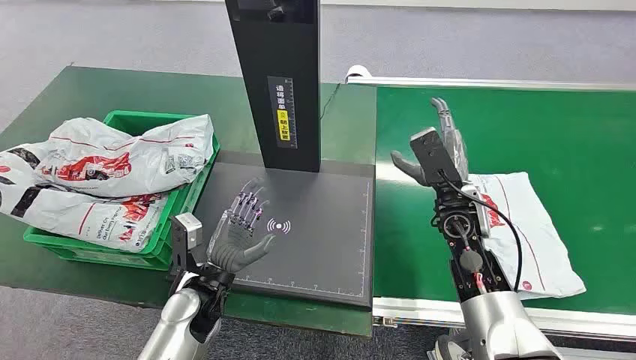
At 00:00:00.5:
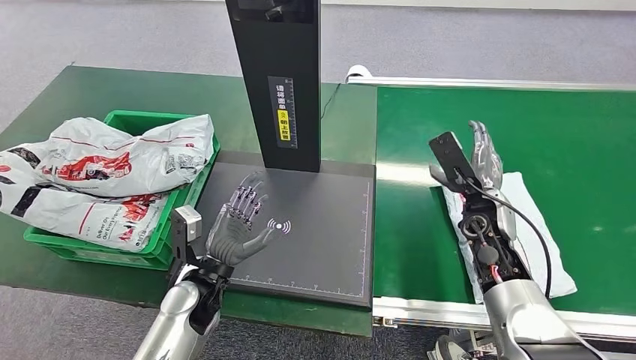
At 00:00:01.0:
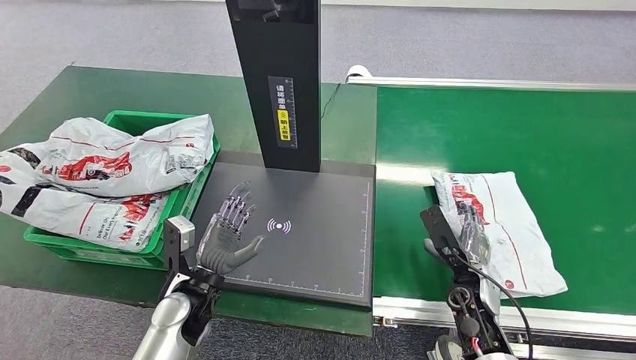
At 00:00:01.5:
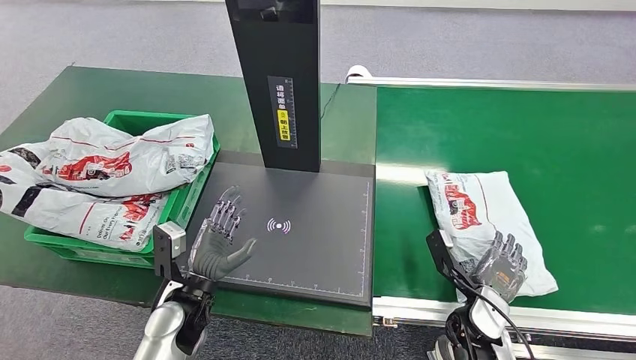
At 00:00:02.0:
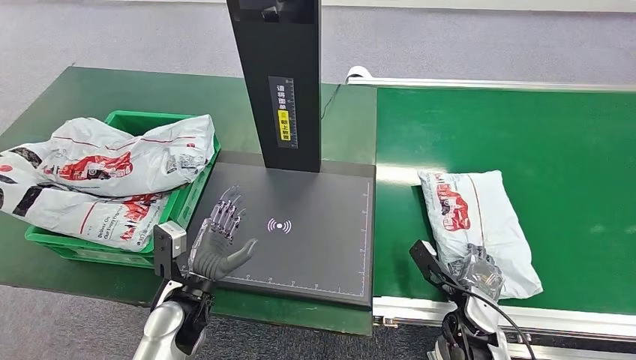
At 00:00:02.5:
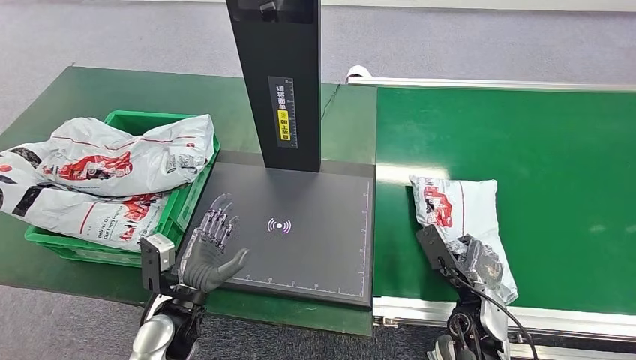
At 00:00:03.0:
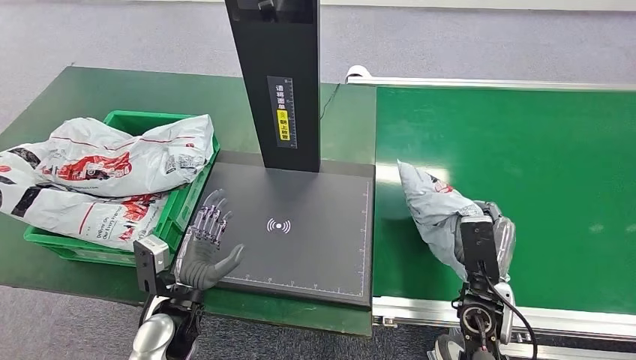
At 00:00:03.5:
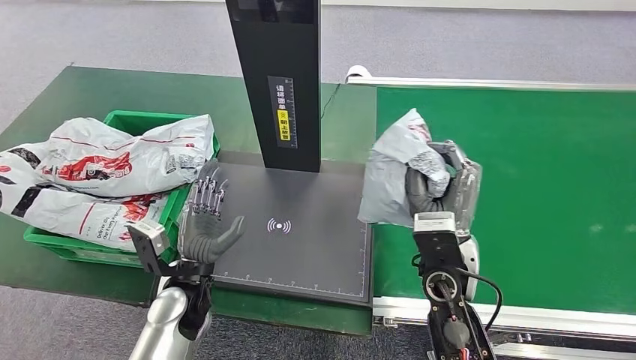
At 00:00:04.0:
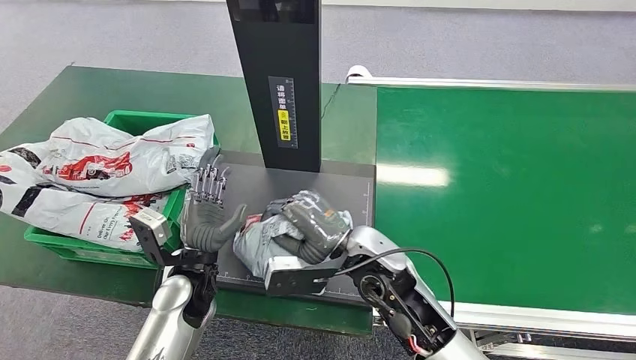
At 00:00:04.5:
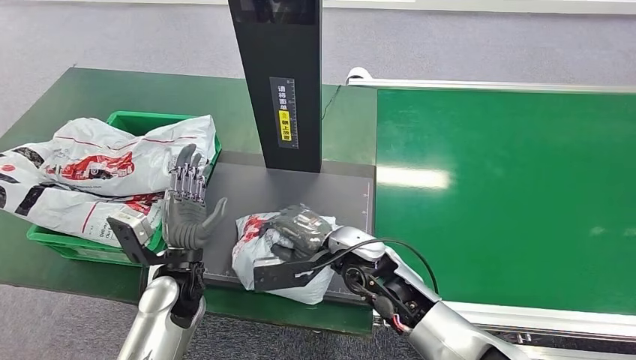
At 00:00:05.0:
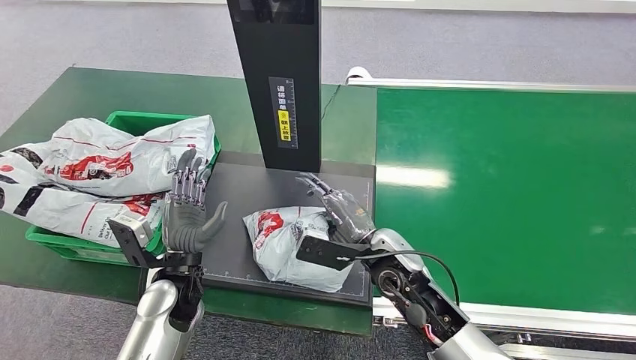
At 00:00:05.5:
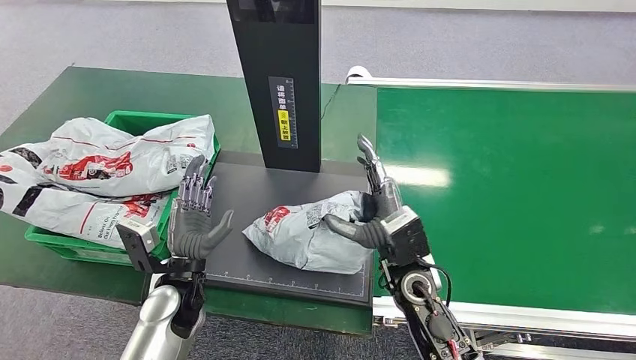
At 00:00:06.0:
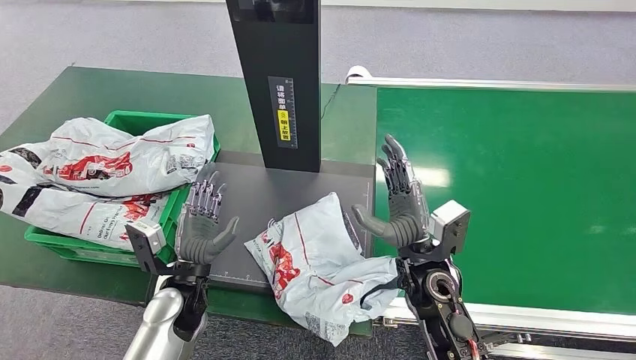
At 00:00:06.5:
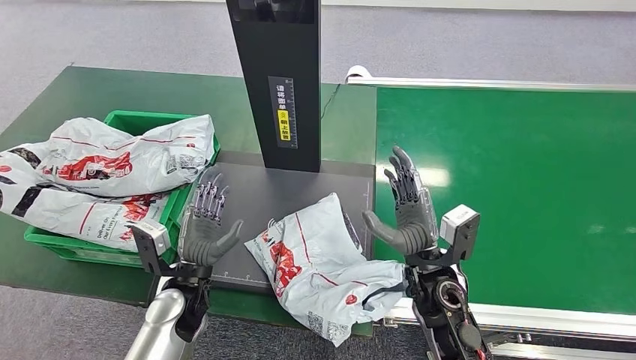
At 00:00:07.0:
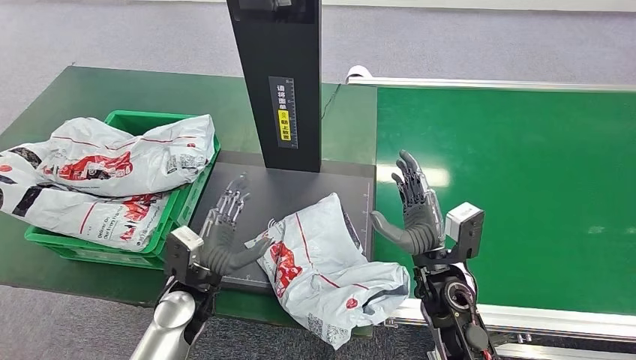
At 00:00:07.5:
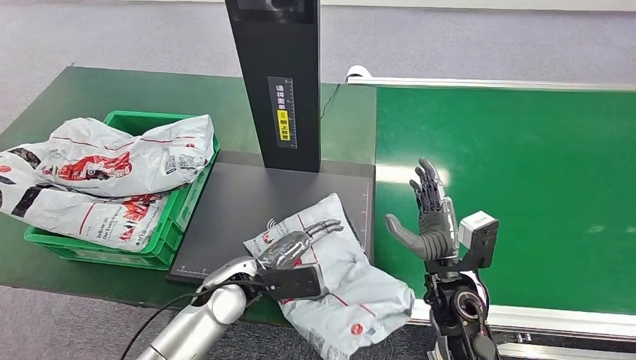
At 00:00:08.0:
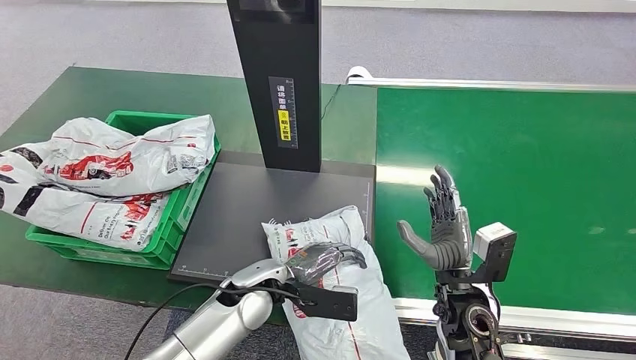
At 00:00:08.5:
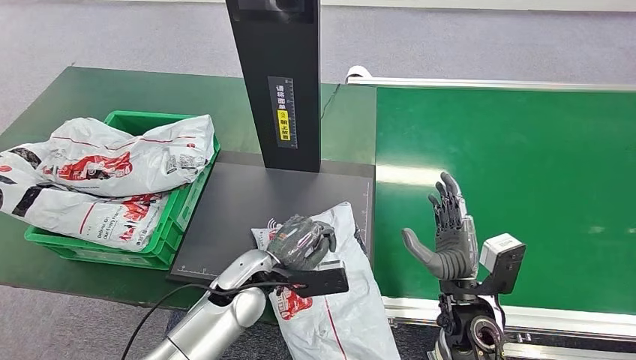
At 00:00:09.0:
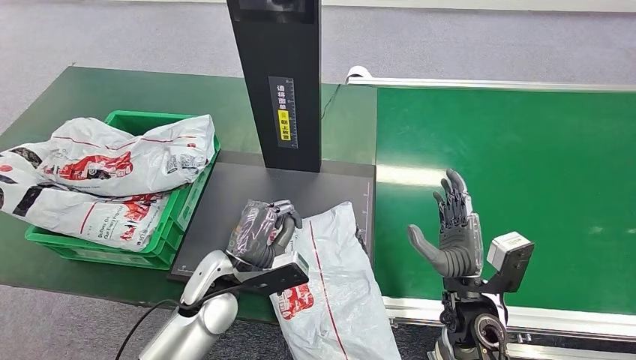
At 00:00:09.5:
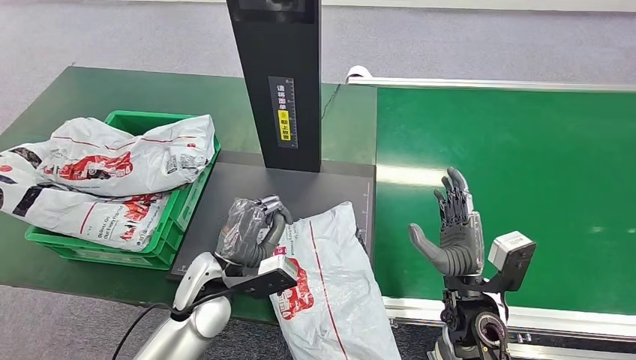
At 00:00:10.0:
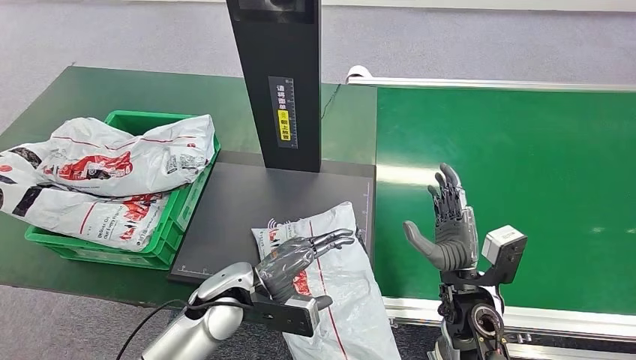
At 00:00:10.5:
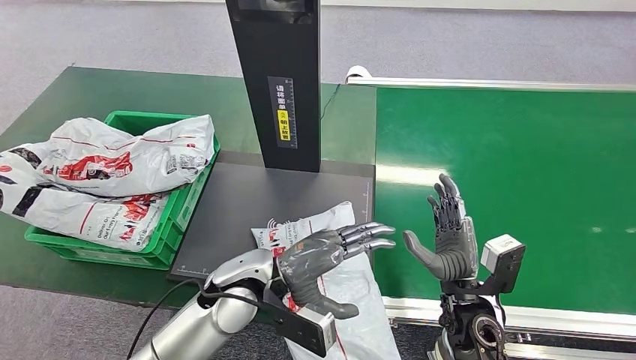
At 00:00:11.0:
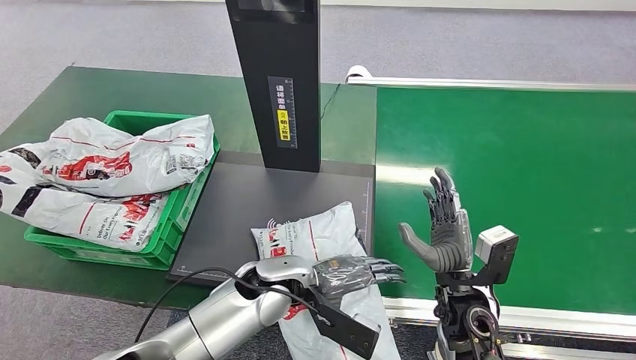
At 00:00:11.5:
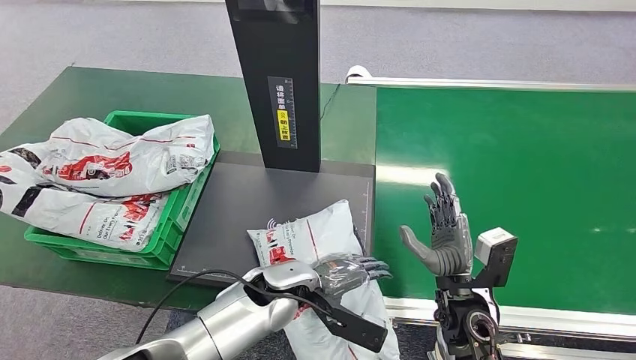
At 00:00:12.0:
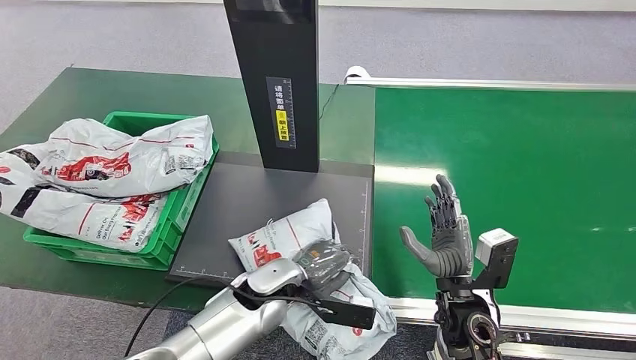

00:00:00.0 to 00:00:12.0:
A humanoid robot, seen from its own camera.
Step, 00:00:00.0 to 00:00:03.0: Pick up the package from the conveyor belt.
Step, 00:00:03.5 to 00:00:06.0: Place the package onto the inbound machine.
00:00:02.0 to 00:00:04.0: The left hand moves roughly 5 cm. The right hand shifts roughly 25 cm to the left and upward.
00:00:04.0 to 00:00:06.0: The right hand travels to the right by roughly 10 cm.
00:00:06.0 to 00:00:08.0: The left hand moves to the right, about 10 cm; the right hand goes about 5 cm to the right.
00:00:10.0 to 00:00:12.0: The left hand heads to the right, covering some 5 cm.

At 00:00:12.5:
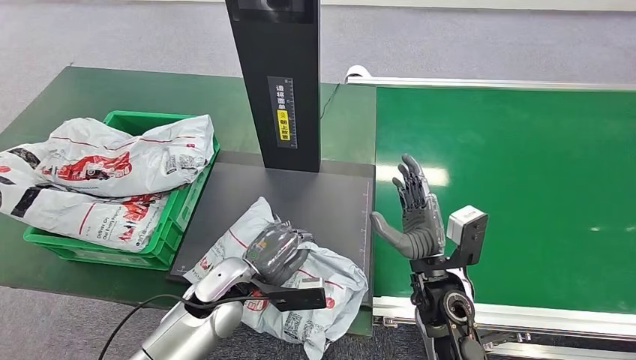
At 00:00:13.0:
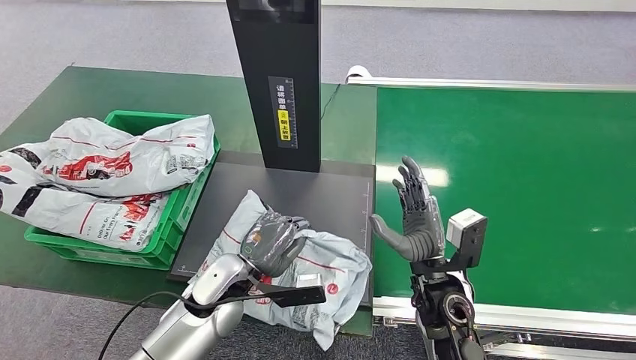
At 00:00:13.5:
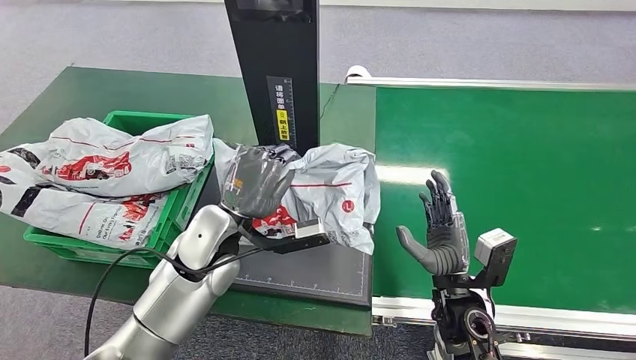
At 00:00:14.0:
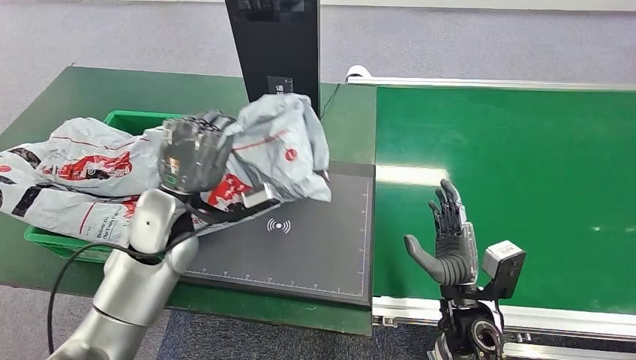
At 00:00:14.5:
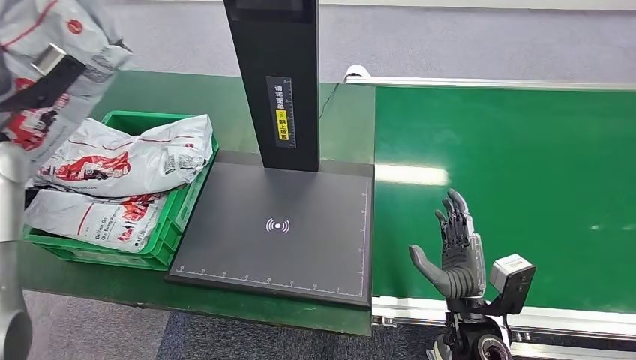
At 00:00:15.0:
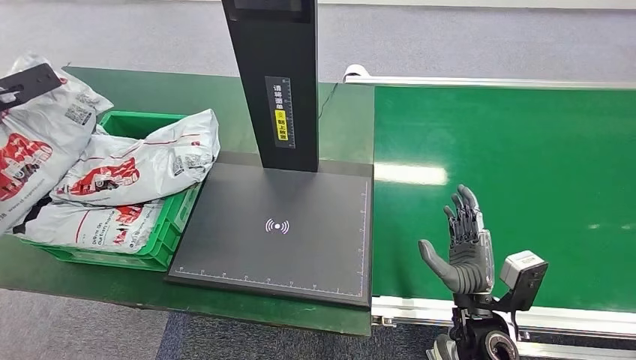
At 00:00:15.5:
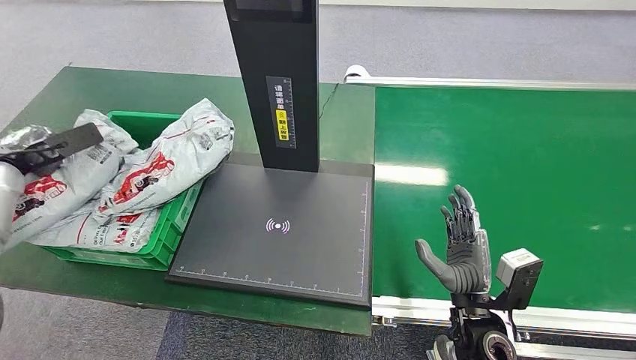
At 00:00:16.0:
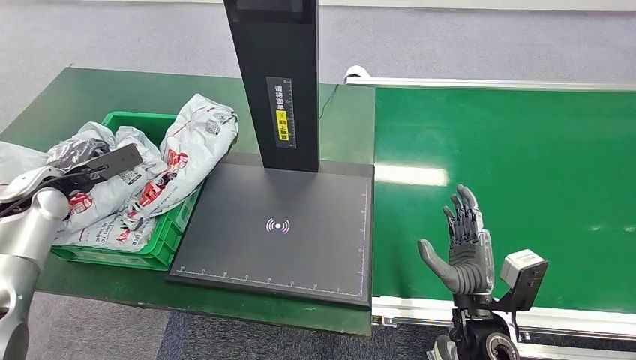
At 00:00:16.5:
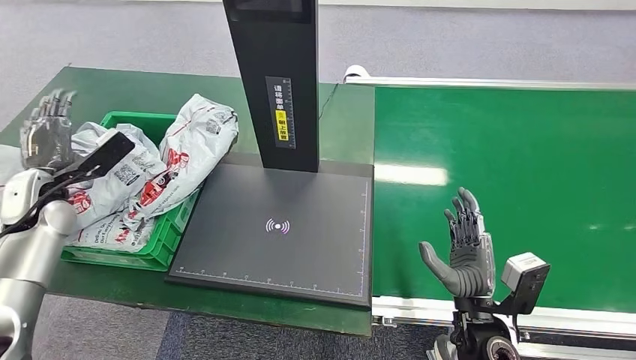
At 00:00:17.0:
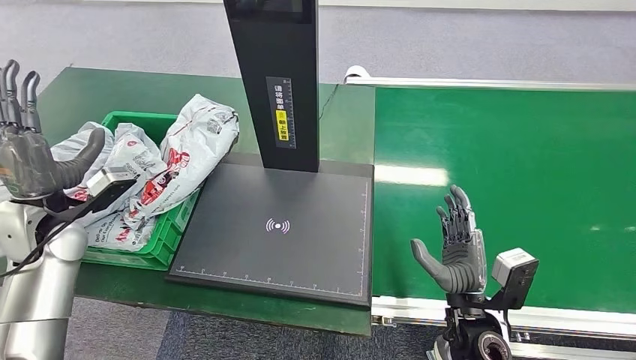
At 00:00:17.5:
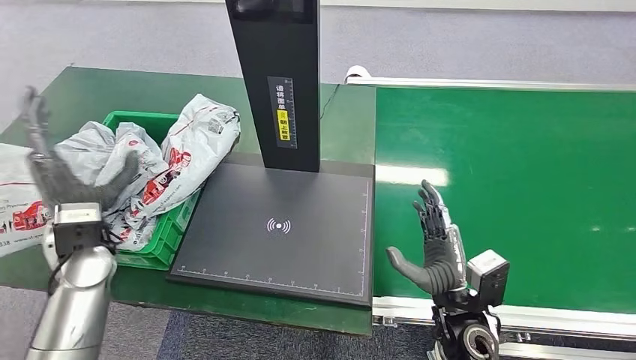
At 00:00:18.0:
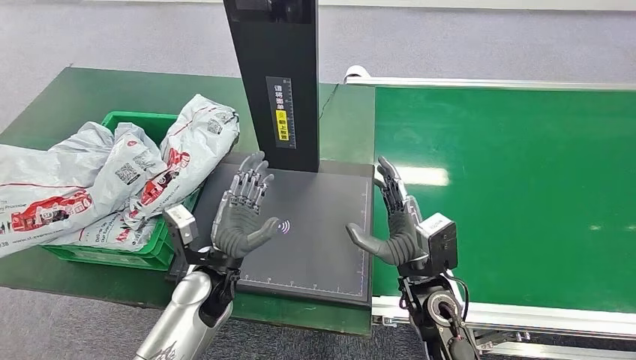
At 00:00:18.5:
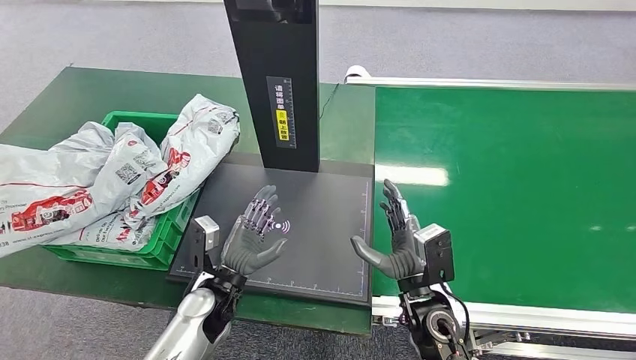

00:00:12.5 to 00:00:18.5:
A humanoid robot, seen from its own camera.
Step, 00:00:14.5 to 00:00:18.5: Place the package into the parcel locker.
00:00:14.5 to 00:00:16.5: The left hand is displaced downward by some 15 cm.
00:00:16.5 to 00:00:18.5: The left hand shifts some 35 cm to the right and downward. The right hand heads to the left, covering about 5 cm.
